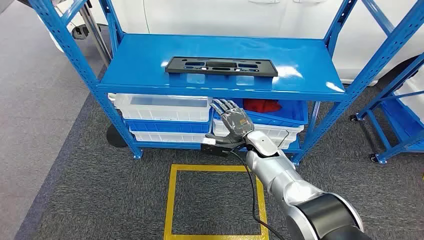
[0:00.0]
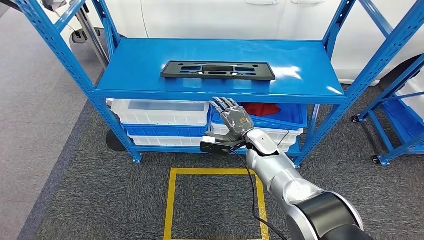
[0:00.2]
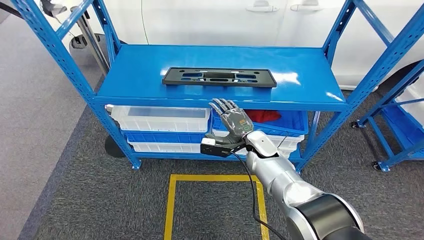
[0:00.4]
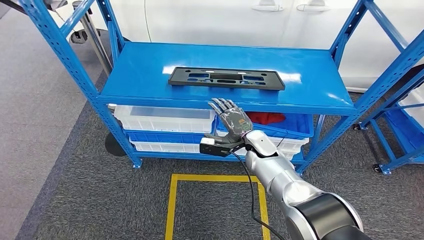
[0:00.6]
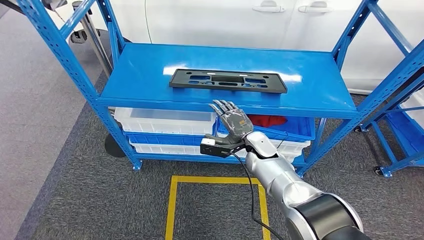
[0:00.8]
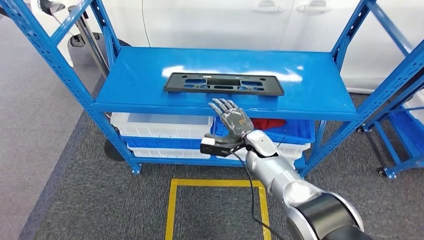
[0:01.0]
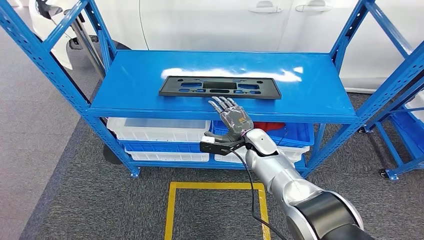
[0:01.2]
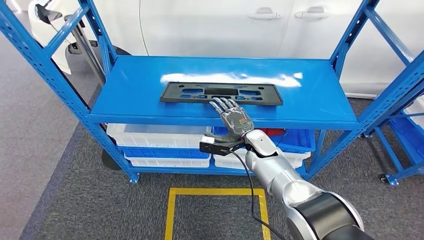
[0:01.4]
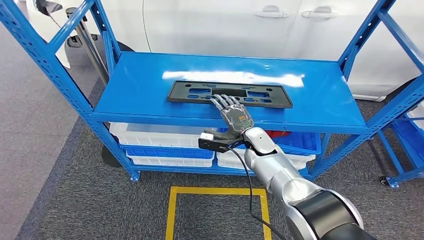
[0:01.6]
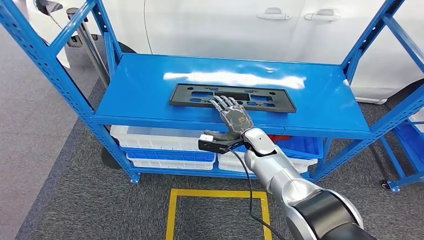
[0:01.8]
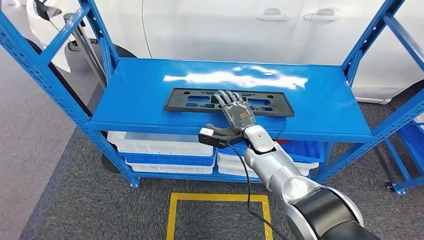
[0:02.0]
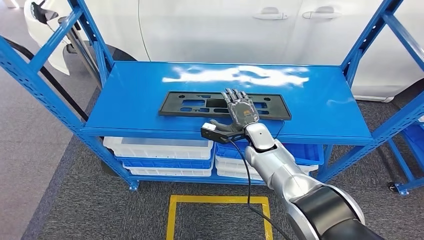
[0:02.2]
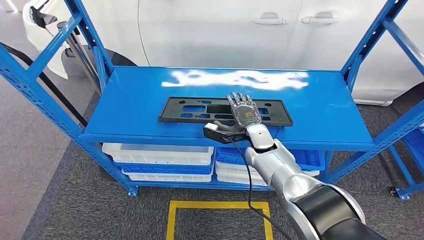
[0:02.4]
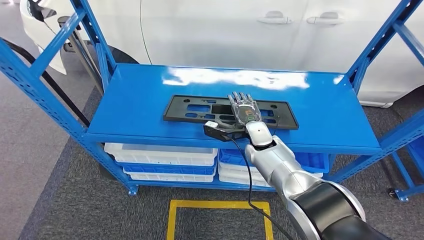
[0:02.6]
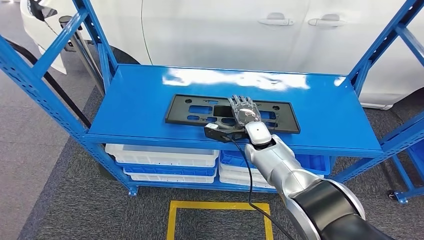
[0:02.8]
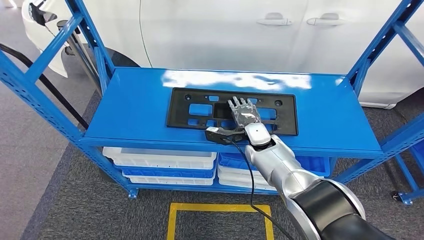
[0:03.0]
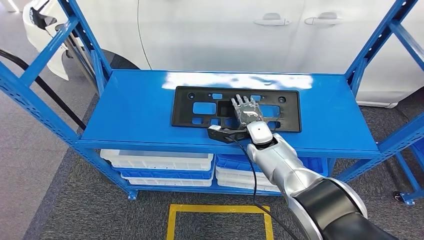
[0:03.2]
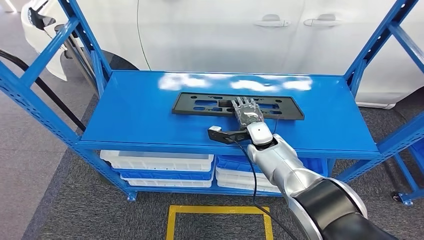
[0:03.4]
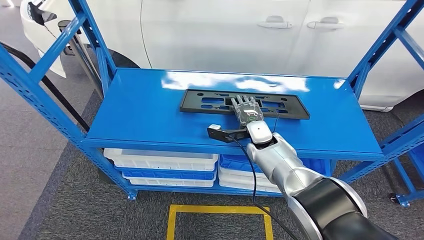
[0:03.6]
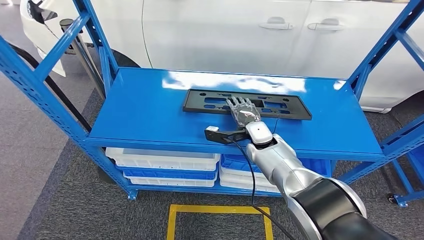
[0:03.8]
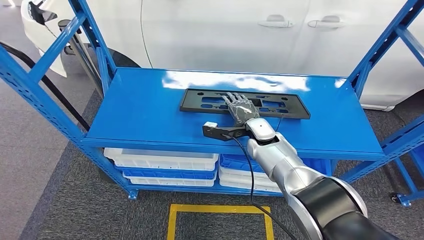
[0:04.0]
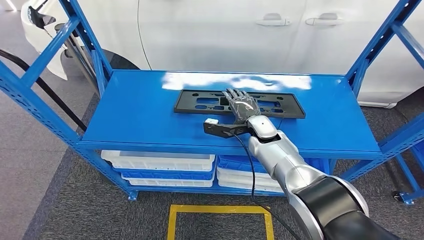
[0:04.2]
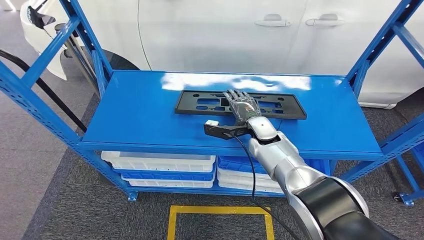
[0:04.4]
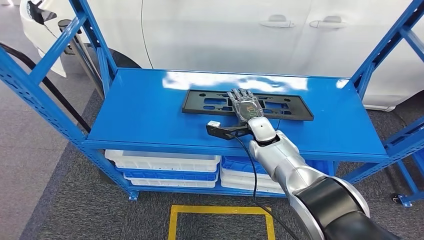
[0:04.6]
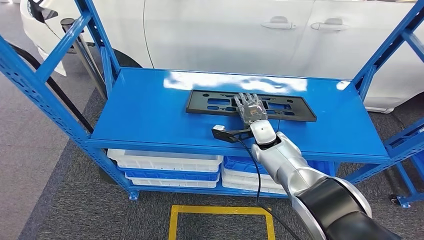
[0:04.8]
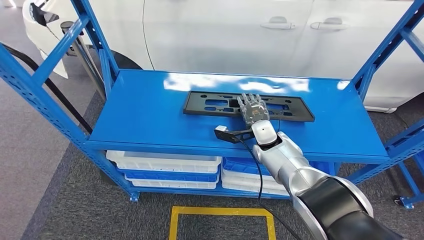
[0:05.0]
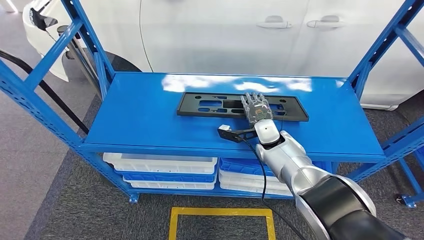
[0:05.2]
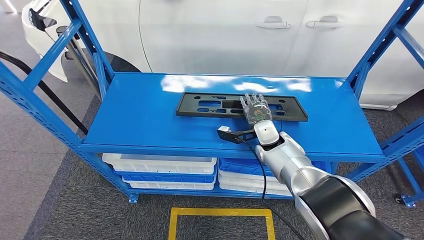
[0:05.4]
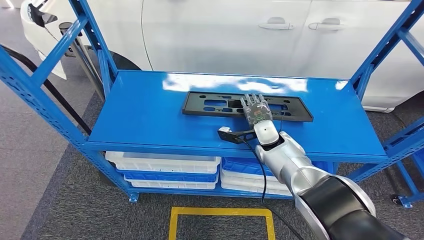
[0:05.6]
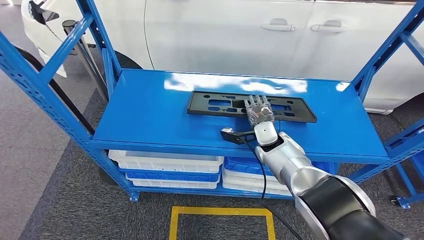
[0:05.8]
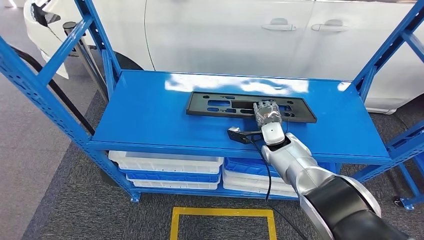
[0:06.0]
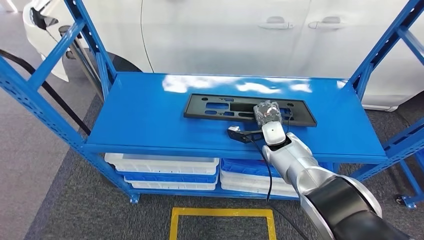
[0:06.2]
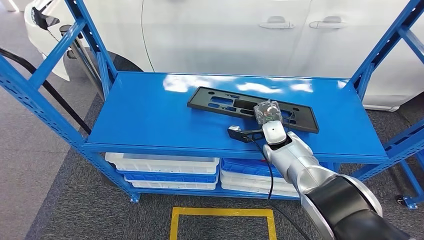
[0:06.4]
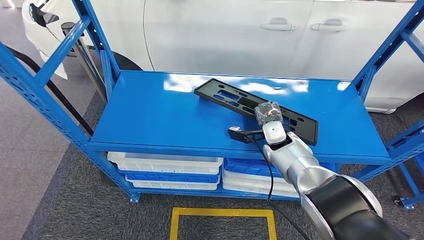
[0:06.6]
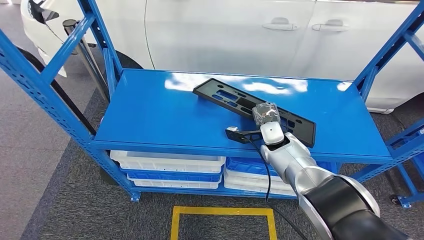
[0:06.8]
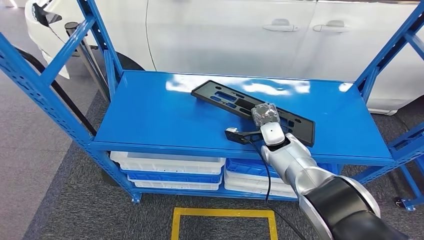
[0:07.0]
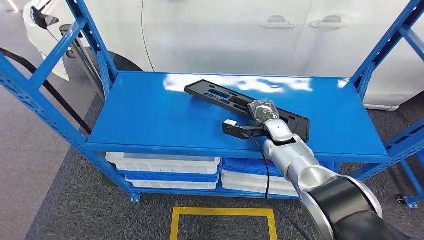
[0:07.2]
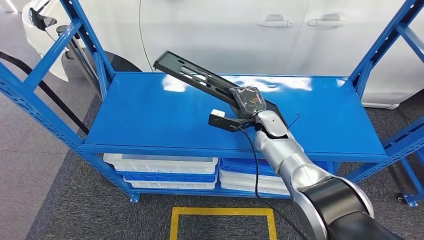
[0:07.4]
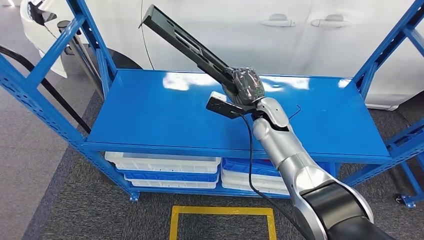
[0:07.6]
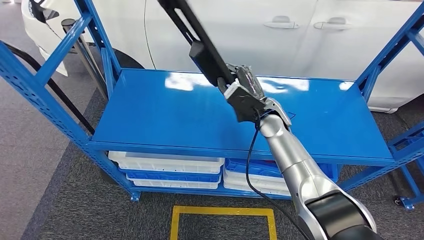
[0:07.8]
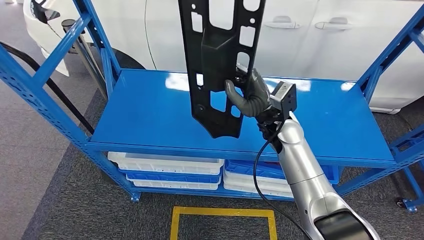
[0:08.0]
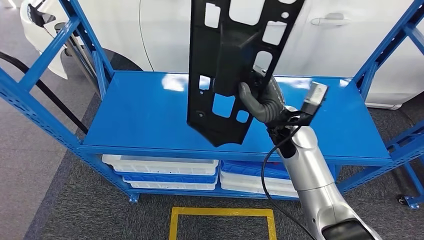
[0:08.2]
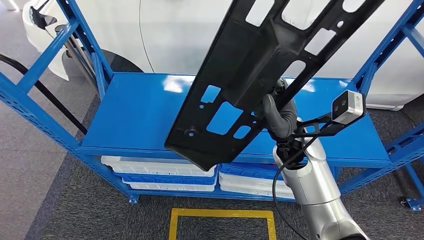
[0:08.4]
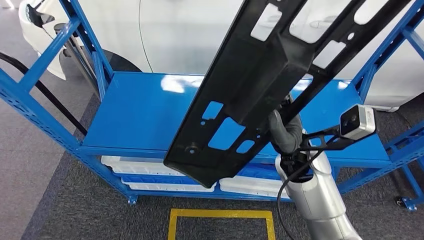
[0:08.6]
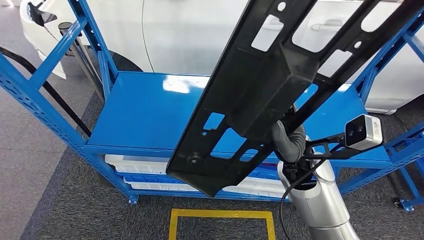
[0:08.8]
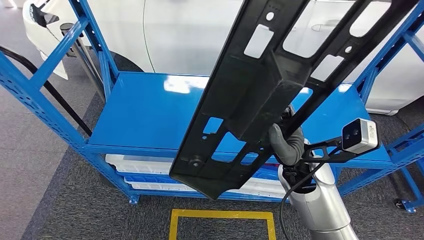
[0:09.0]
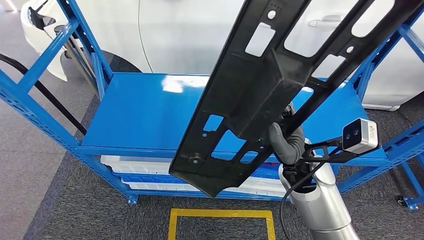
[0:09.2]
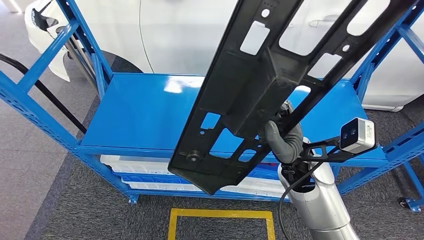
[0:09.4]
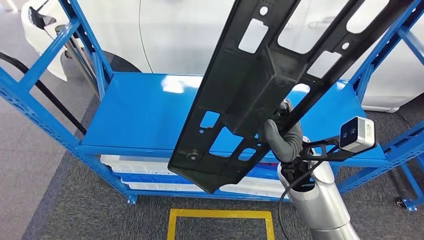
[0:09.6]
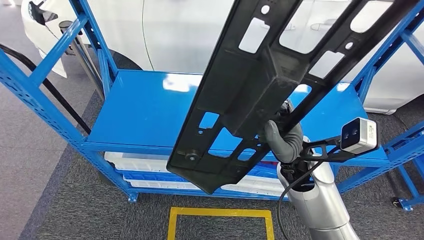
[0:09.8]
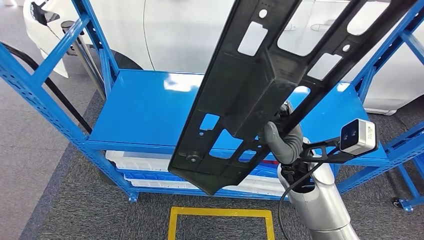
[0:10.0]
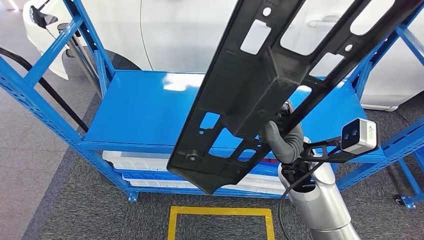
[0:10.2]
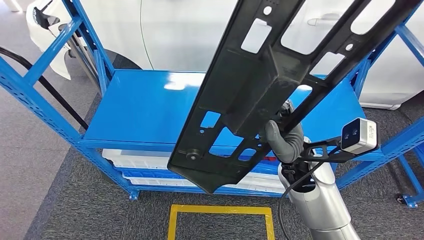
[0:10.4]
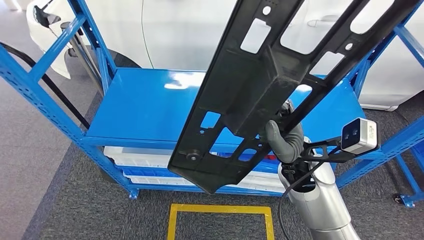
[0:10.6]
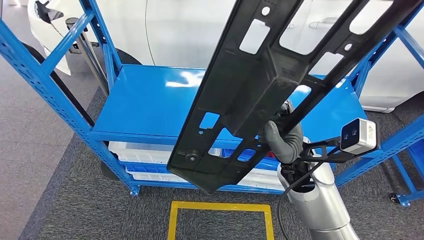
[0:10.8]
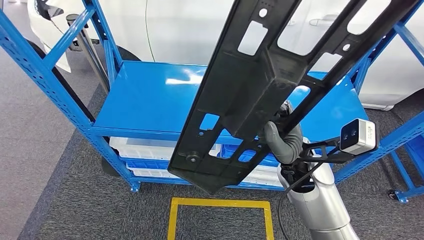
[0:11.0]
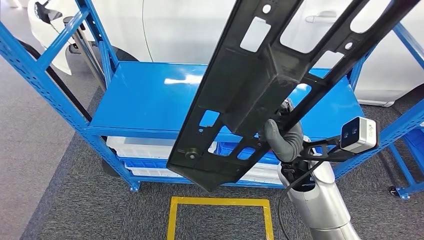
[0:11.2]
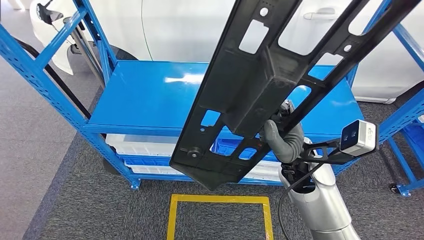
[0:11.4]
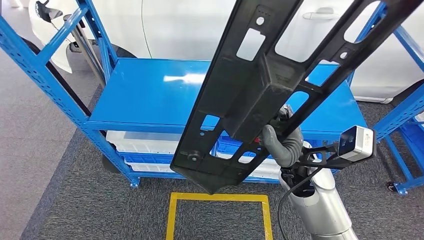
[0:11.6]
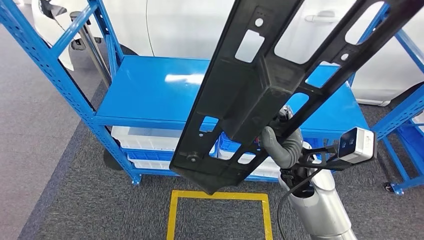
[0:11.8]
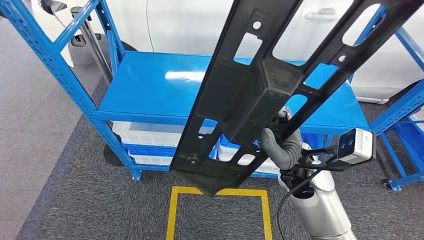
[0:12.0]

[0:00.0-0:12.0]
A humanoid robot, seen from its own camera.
Step, 0:00.0 to 0:04.8: Pick up the large material from the shelf.
0:03.0 to 0:04.4: There are only small adjustments of the hands.

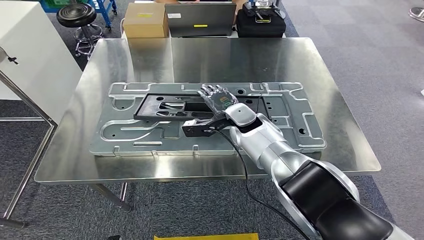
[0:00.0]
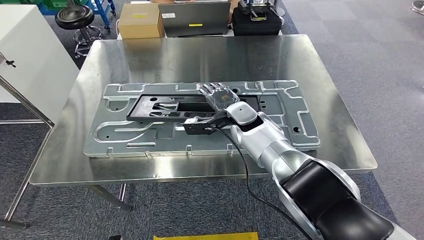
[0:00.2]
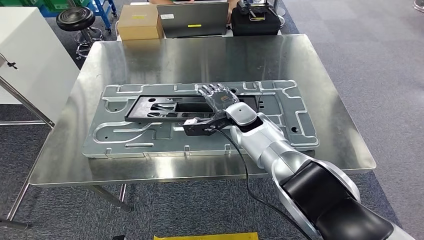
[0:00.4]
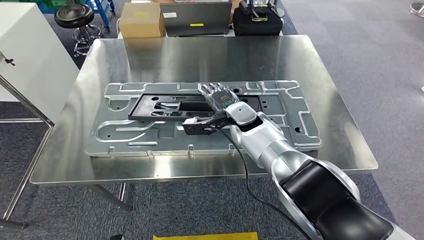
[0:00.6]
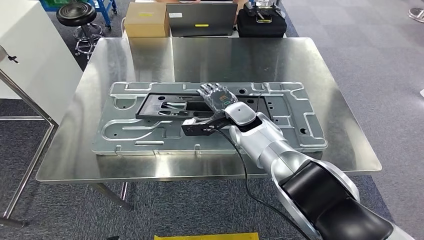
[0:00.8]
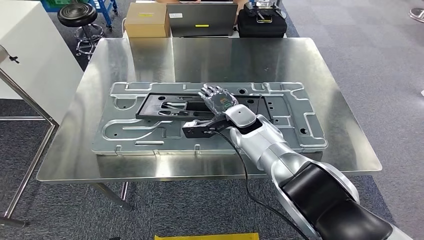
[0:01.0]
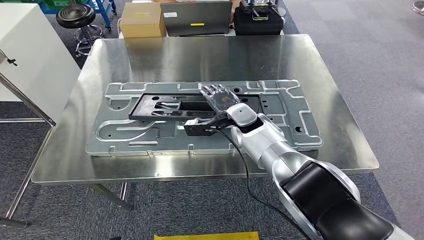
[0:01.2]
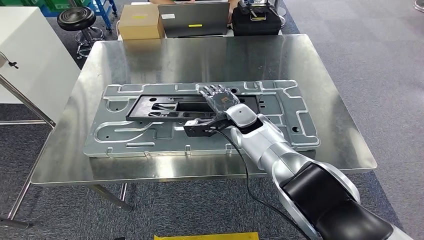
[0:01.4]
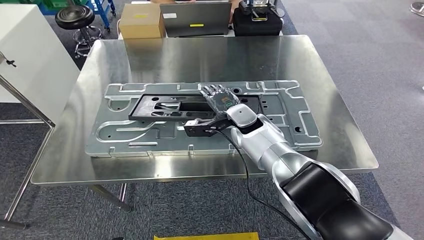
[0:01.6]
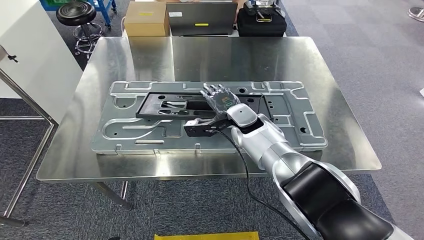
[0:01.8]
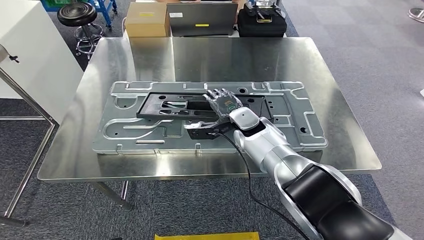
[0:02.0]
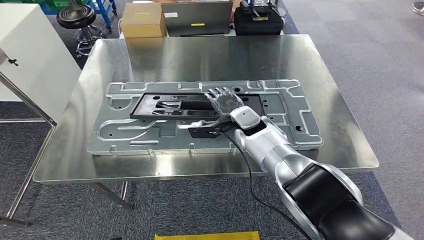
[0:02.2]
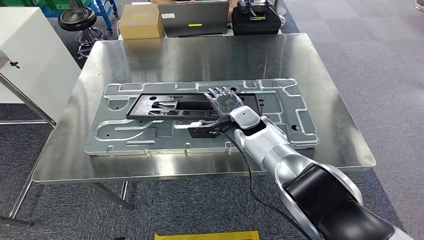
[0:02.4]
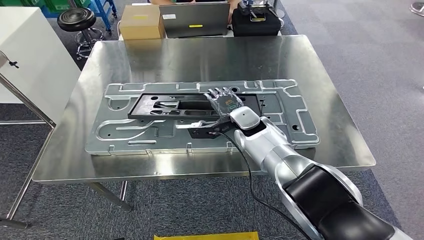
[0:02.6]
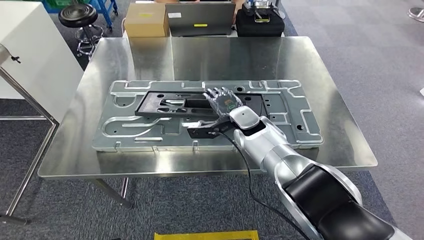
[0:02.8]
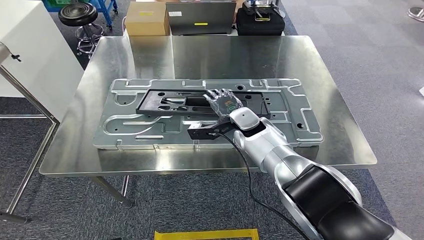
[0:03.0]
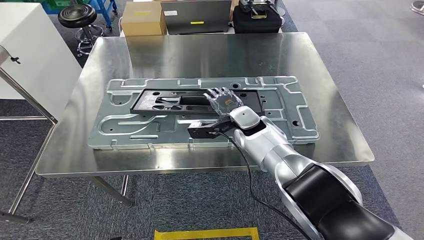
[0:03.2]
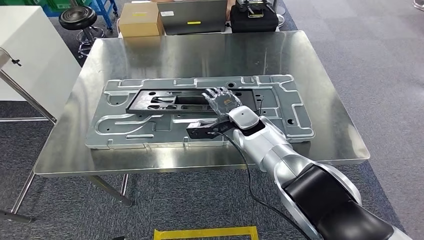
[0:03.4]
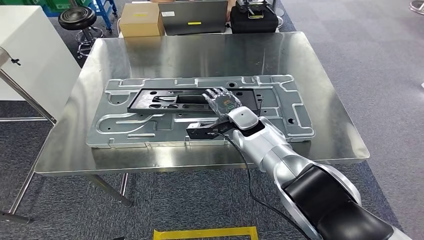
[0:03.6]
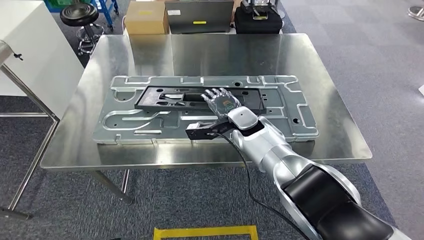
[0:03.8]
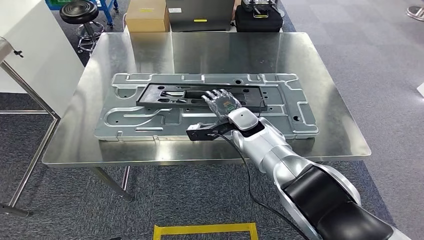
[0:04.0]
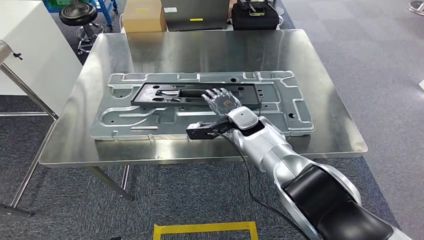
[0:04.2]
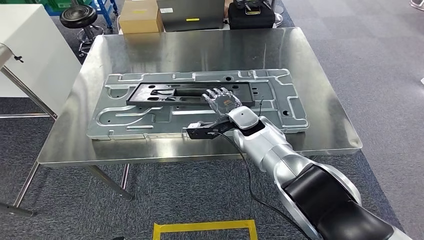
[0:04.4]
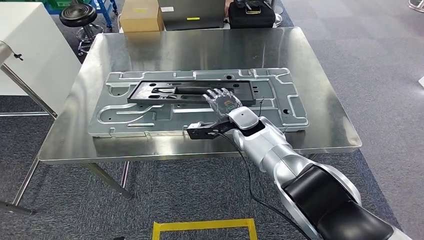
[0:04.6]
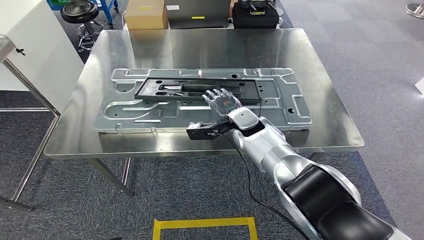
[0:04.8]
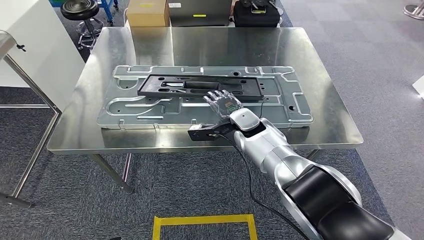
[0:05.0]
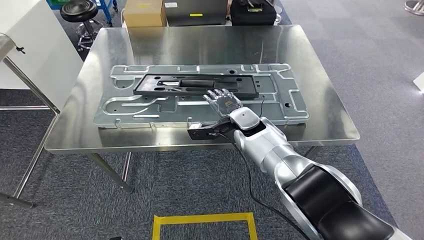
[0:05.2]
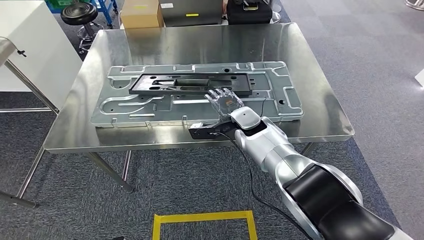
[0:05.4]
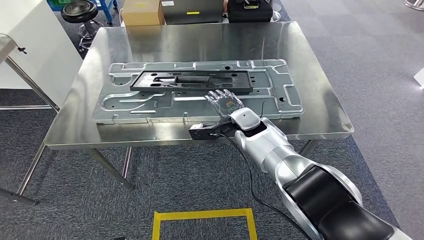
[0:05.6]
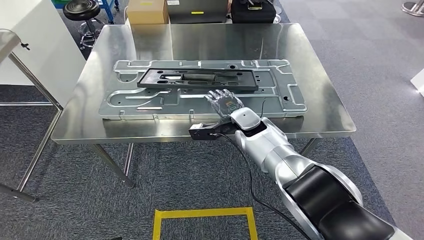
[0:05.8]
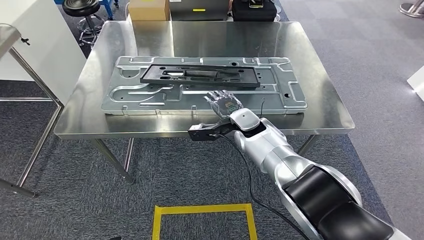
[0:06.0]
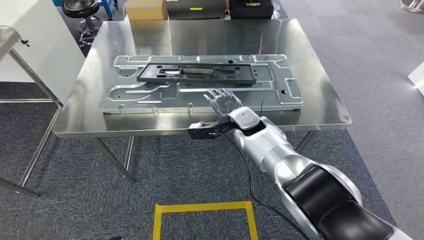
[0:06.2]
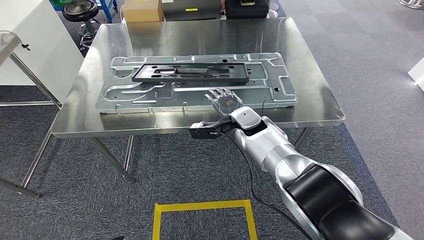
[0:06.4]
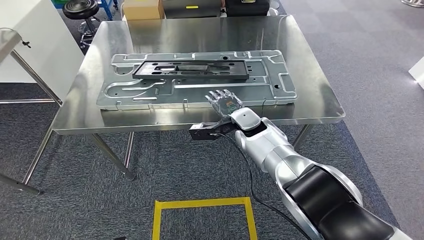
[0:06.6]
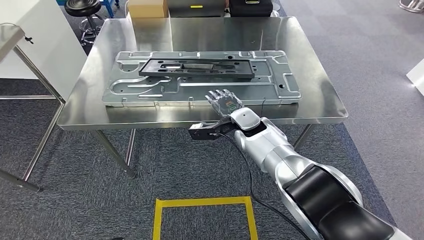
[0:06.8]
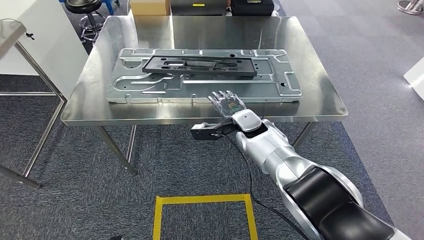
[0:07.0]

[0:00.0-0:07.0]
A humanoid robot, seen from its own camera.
Step, 0:00.0 to 0:02.0: Insert the large material into the corresponding slot on the workbench.
0:00.0 to 0:01.4: Neither hand changes place.
